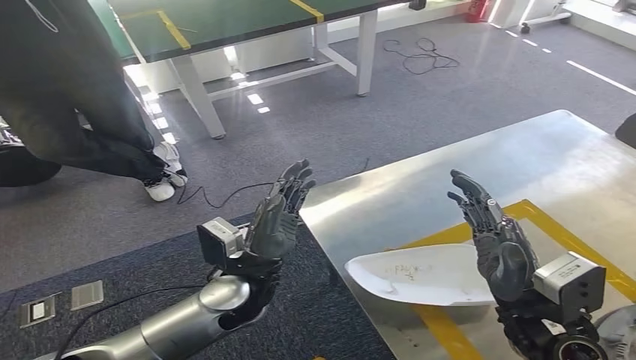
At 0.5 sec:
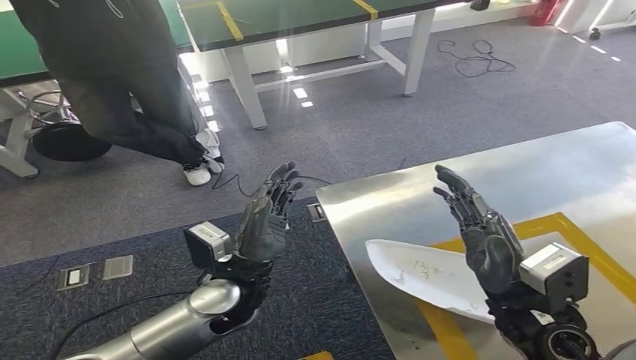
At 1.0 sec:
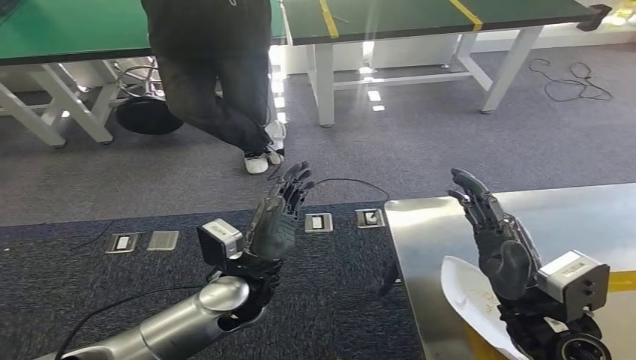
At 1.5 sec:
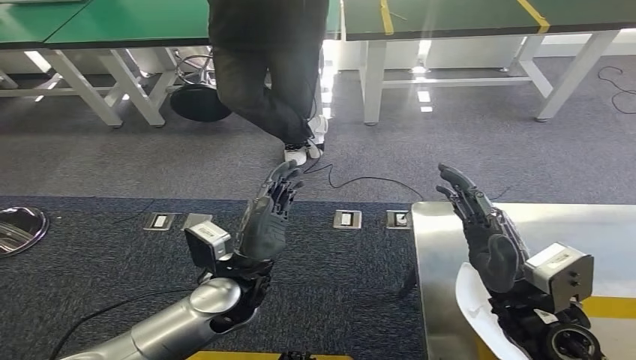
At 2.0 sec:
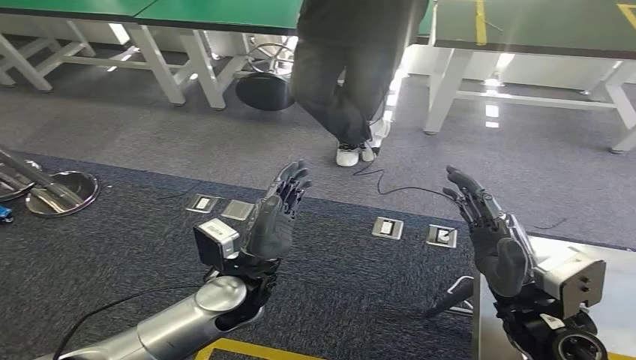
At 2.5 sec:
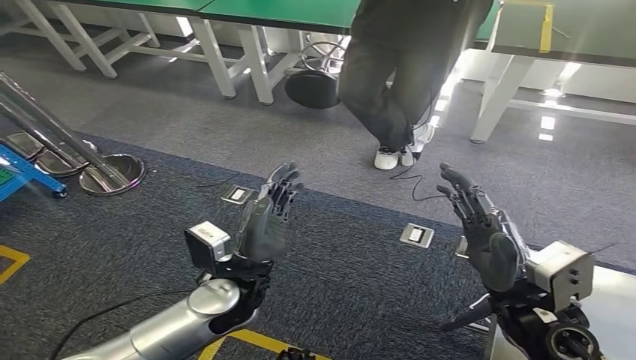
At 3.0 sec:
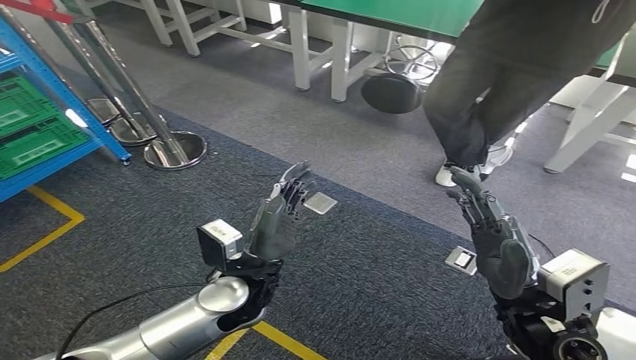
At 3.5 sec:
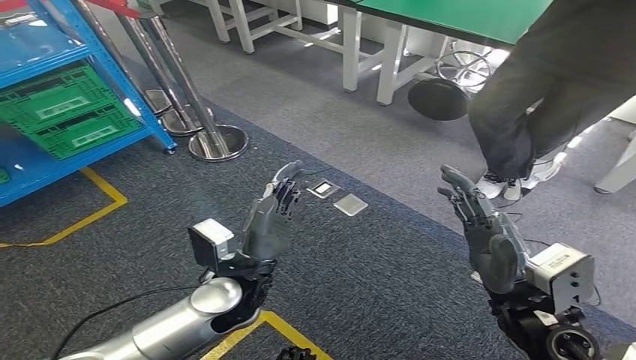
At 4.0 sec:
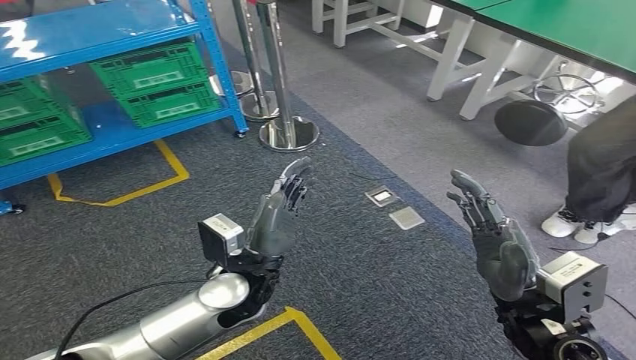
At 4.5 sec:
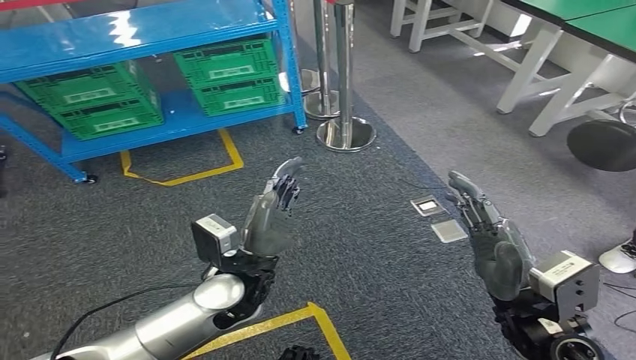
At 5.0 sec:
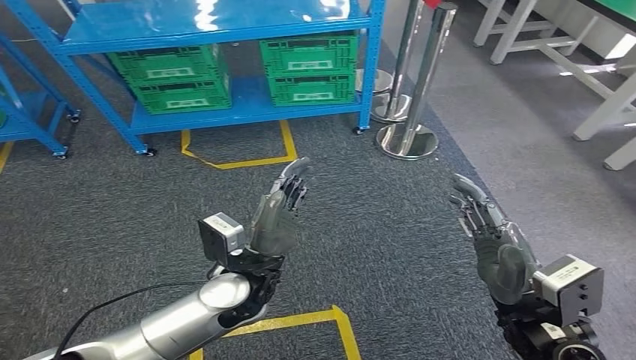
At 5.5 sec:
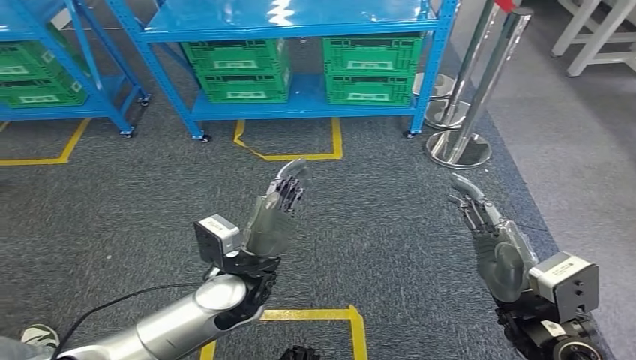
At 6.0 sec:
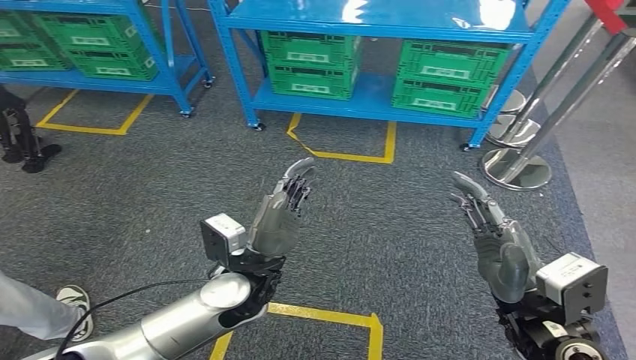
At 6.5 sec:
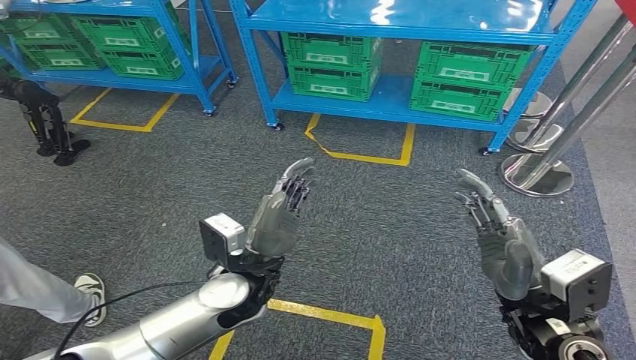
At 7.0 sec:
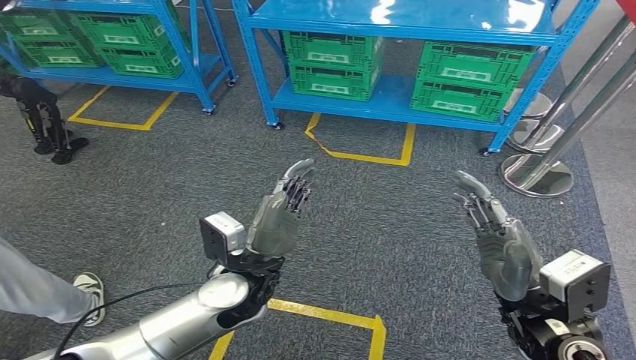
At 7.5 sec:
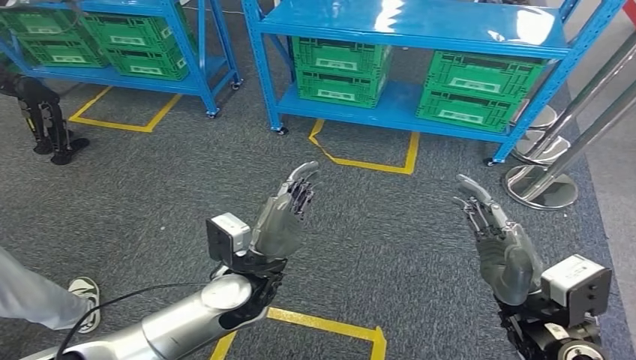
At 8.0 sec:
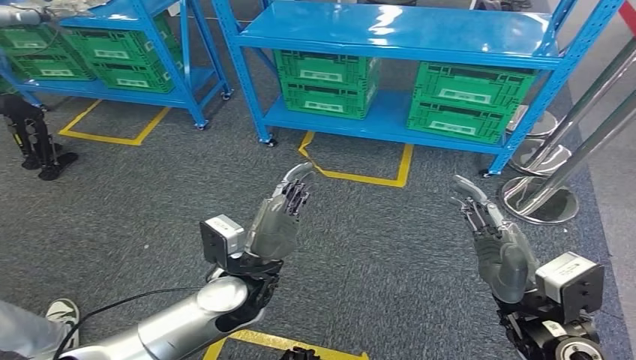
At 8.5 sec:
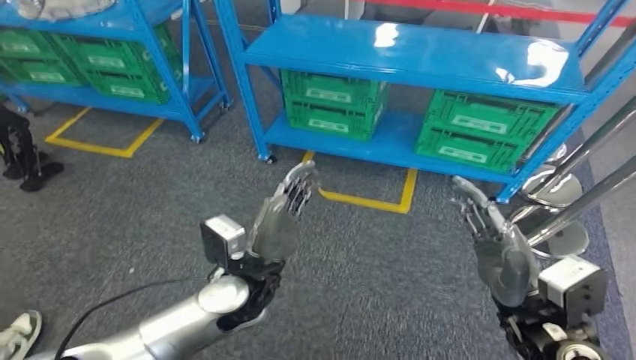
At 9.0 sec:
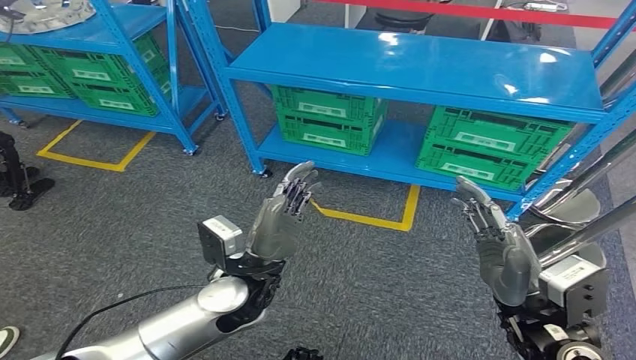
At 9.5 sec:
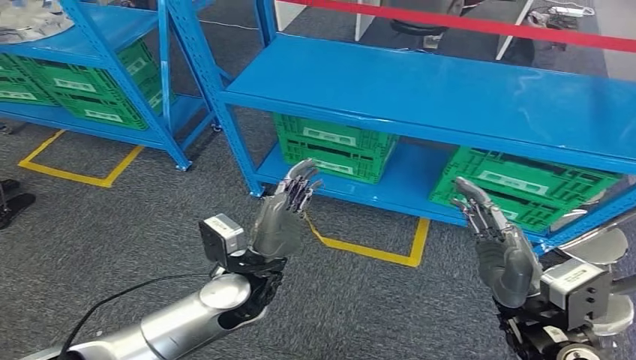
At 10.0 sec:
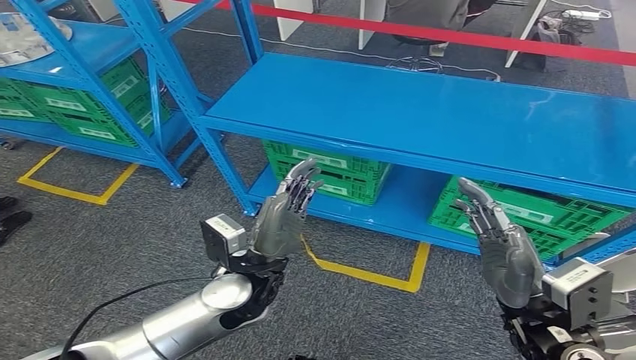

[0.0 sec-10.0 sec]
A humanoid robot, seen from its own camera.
Step, 0.0 sec to 10.0 sec: Return to the initial position at the workbench.
